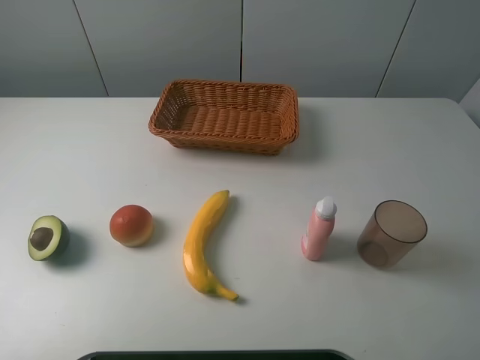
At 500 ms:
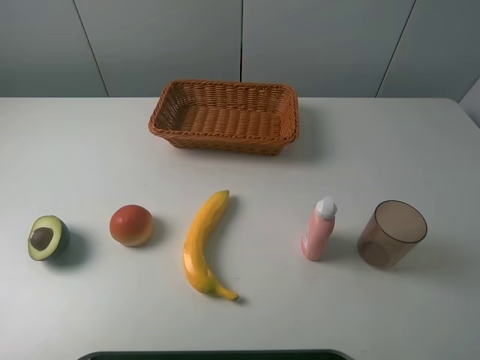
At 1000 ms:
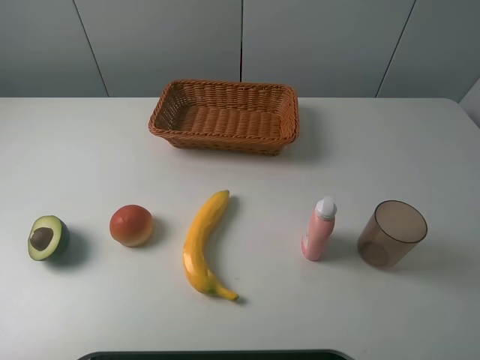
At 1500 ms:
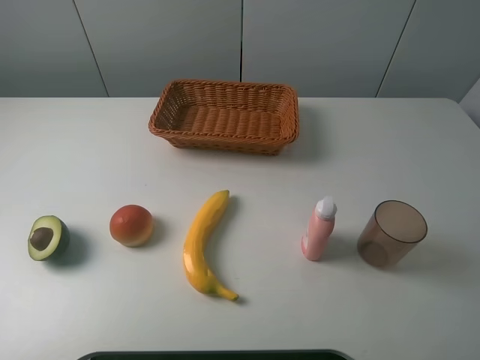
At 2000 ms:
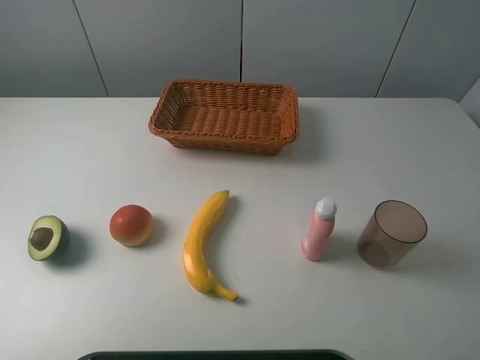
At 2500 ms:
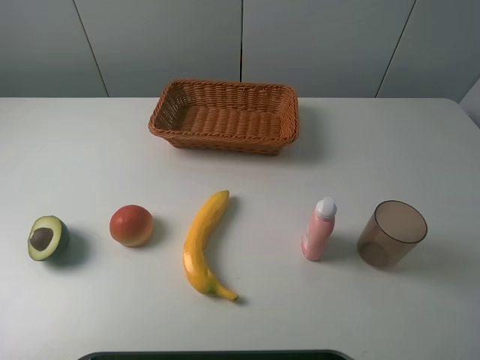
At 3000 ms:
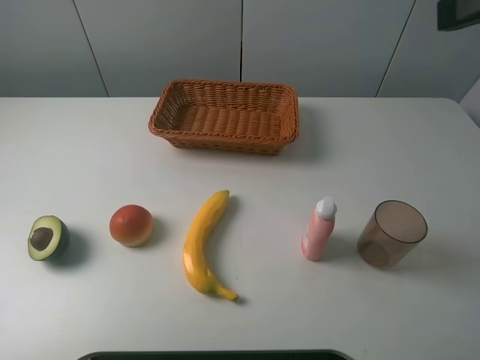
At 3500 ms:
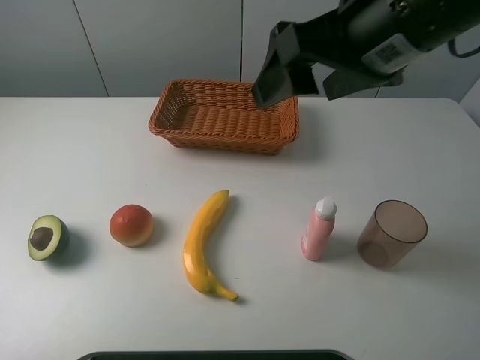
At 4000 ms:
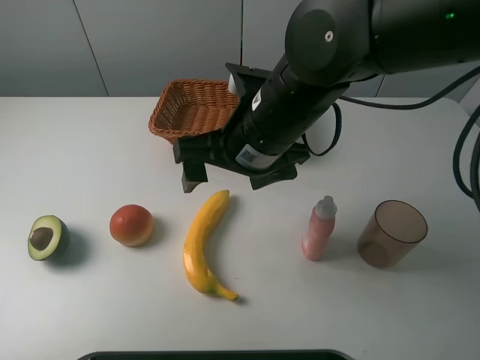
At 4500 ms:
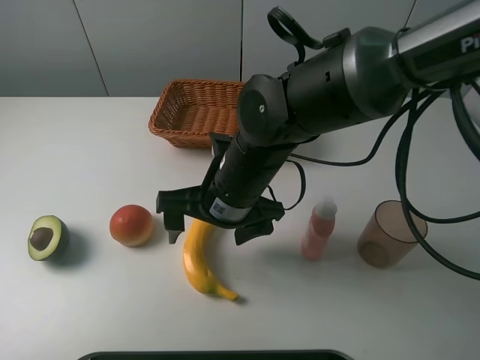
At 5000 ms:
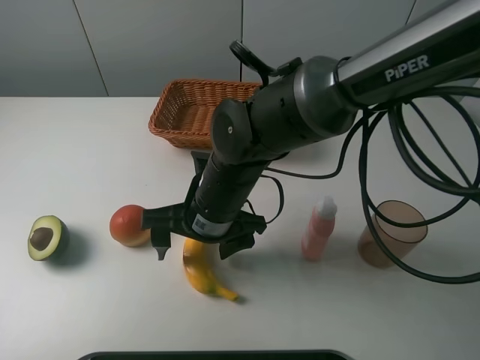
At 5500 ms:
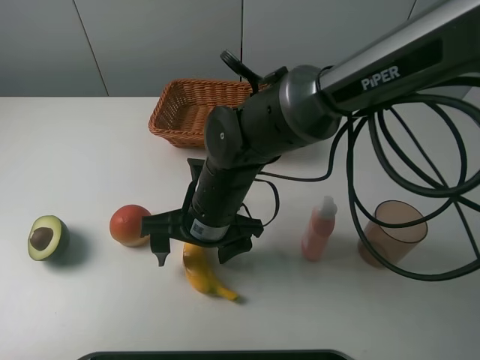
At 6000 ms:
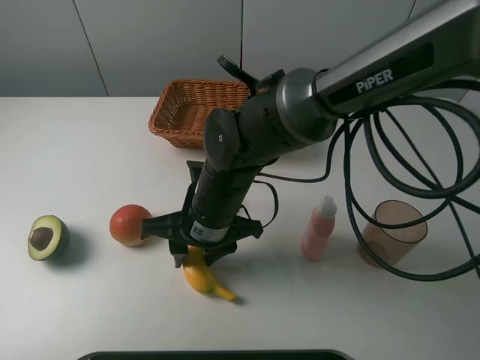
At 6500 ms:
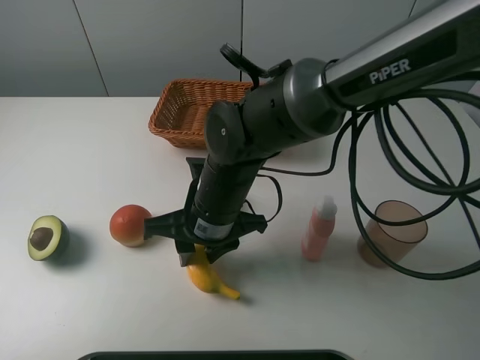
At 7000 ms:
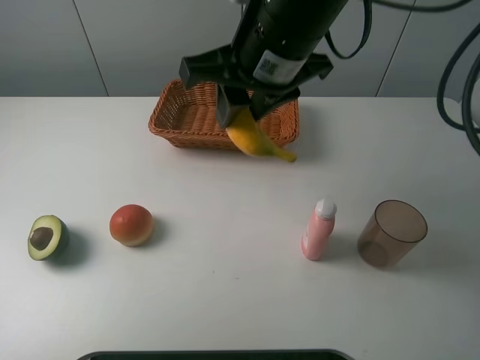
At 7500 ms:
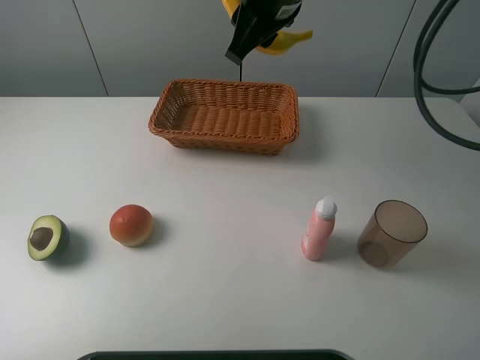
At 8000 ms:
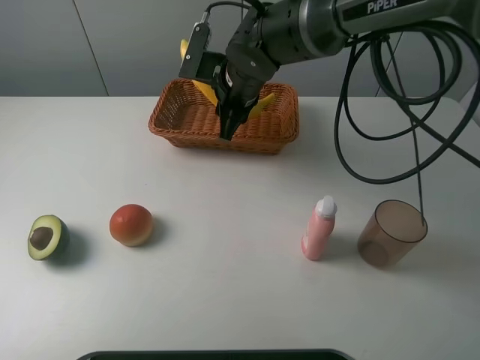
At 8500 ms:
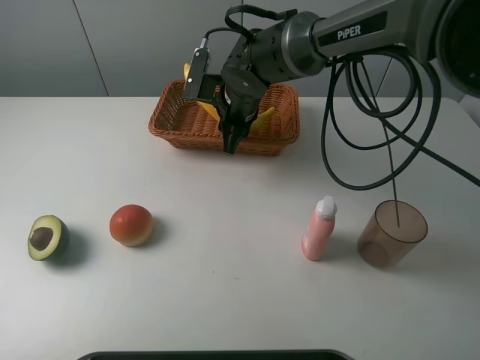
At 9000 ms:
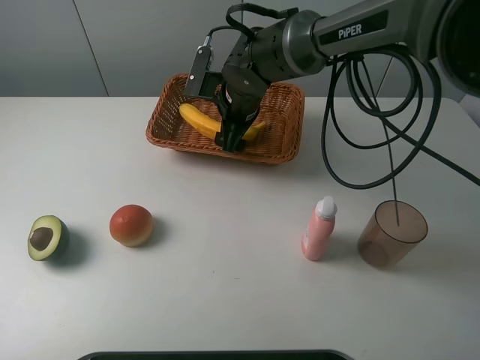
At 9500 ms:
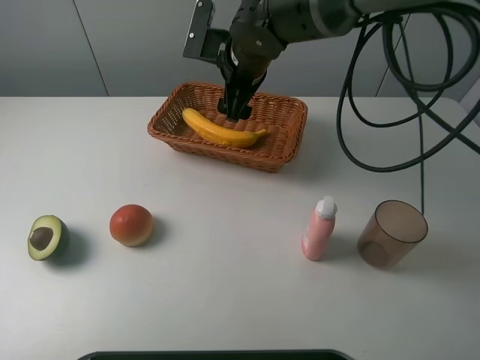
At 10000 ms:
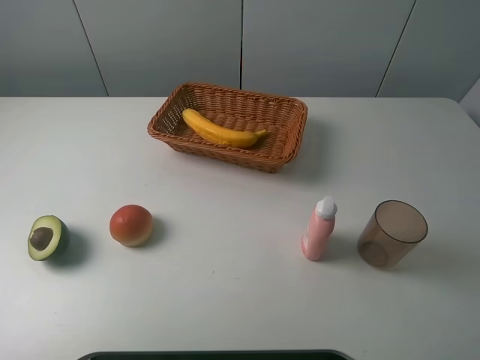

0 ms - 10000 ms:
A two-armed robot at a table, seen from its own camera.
Task of the whole recording: randomly pick up an item from the table and put it in the basket.
Step, 0 ms - 6000 ms: Grasp the banana with the right gripper.
Step, 6500 ms - 9500 ms: Place the banana into the basket with the right gripper.
0 ms - 2000 ms: Both grippers stay put.
2000 ms - 4000 ms: The right gripper moves to the left and forward, roughly 35 cm.
4000 ms - 6000 ms: The right gripper travels downward and to the left by some 10 cm, and closes its fingers.
6000 ms - 8000 ms: The right gripper shifts approximately 15 cm forward, and travels upward and back again, some 20 cm each way.
8000 ms - 10000 ms: The right gripper shifts some 30 cm upward and to the right, and opens.

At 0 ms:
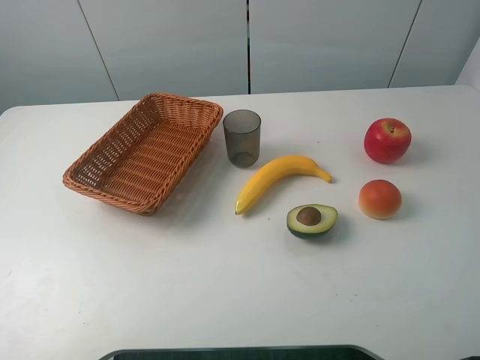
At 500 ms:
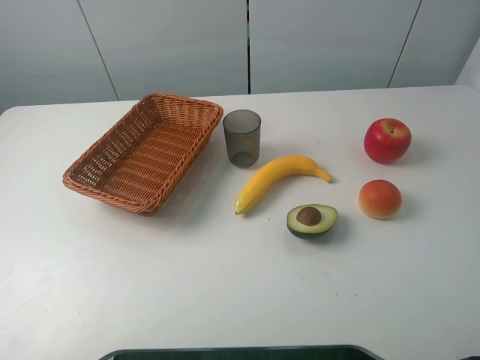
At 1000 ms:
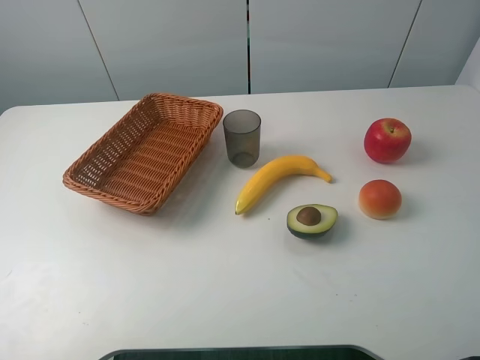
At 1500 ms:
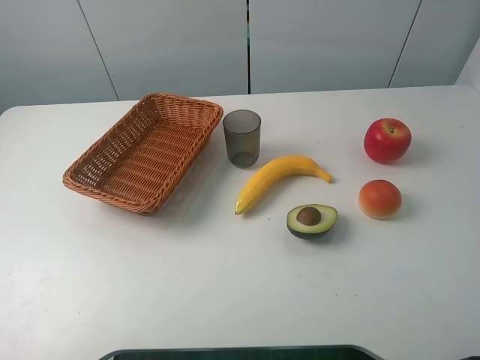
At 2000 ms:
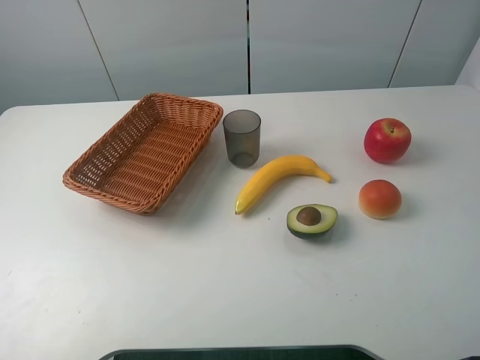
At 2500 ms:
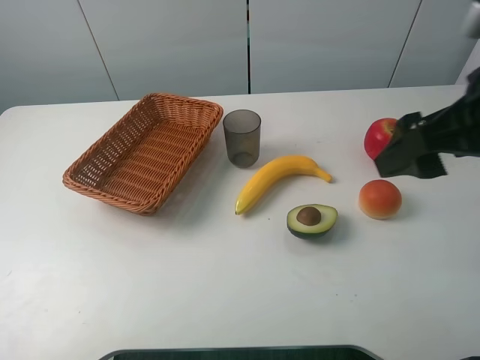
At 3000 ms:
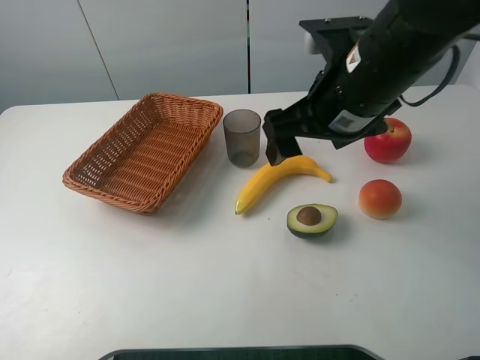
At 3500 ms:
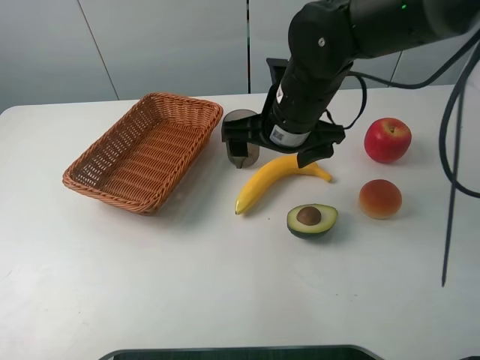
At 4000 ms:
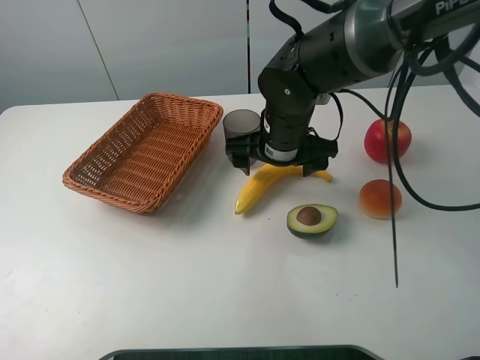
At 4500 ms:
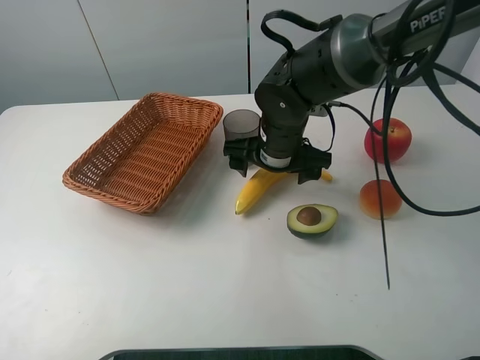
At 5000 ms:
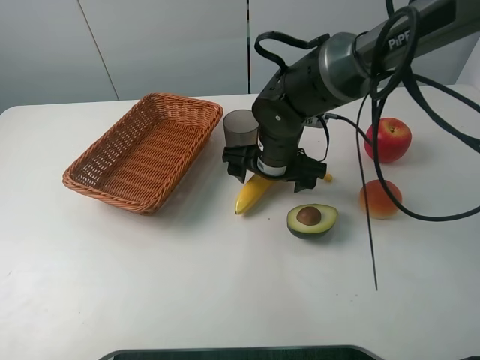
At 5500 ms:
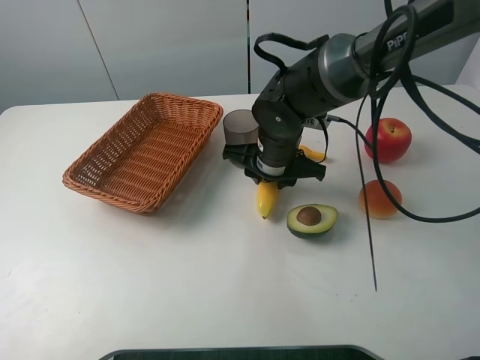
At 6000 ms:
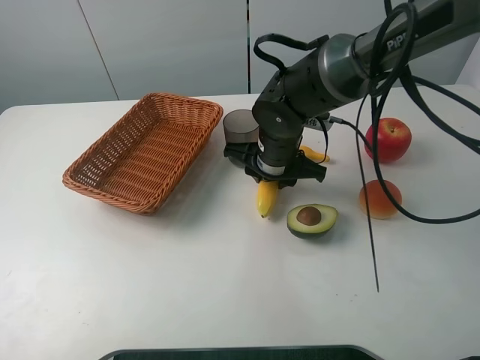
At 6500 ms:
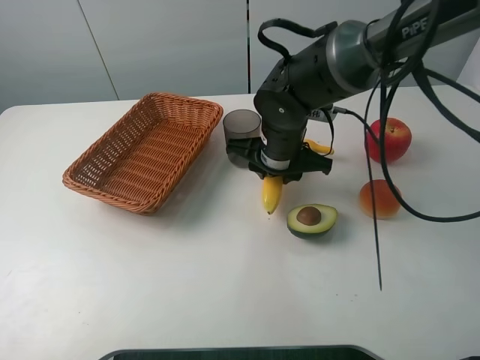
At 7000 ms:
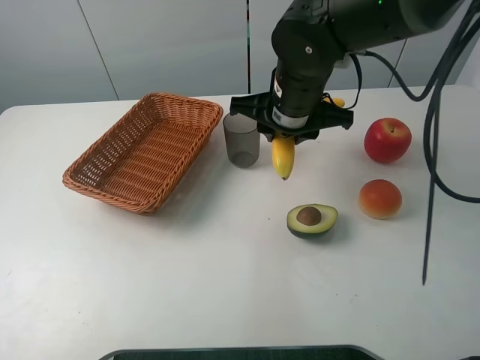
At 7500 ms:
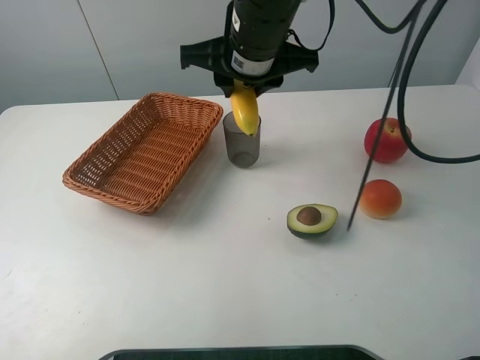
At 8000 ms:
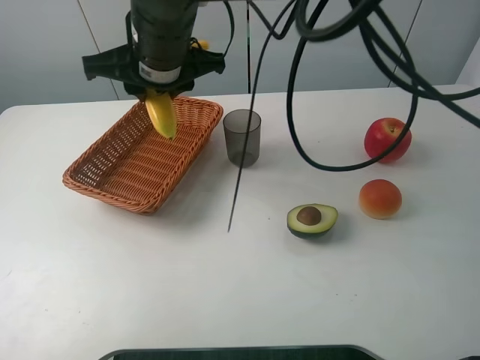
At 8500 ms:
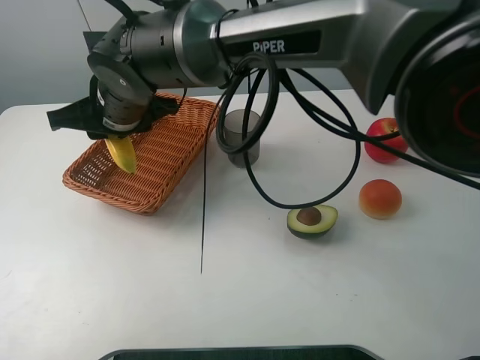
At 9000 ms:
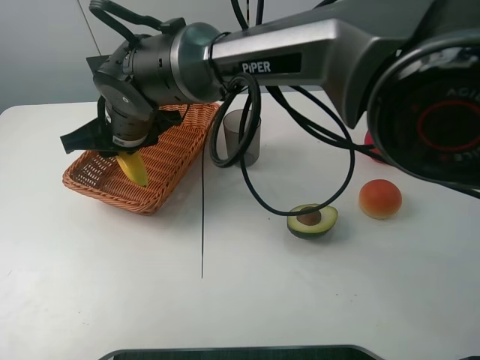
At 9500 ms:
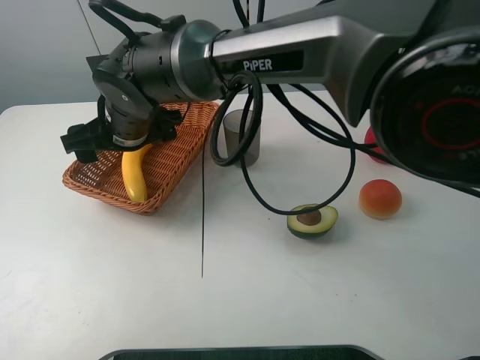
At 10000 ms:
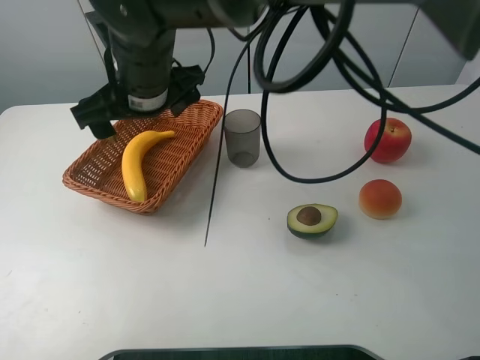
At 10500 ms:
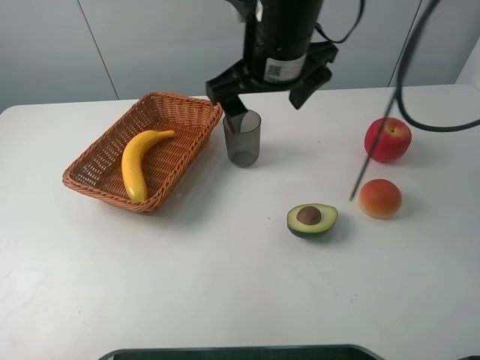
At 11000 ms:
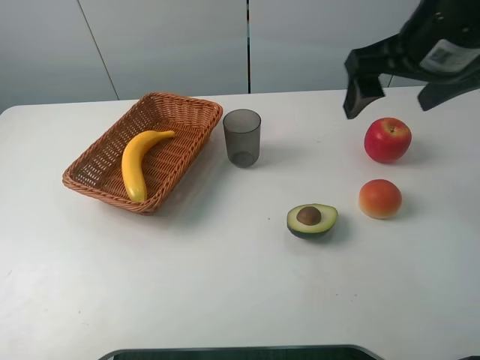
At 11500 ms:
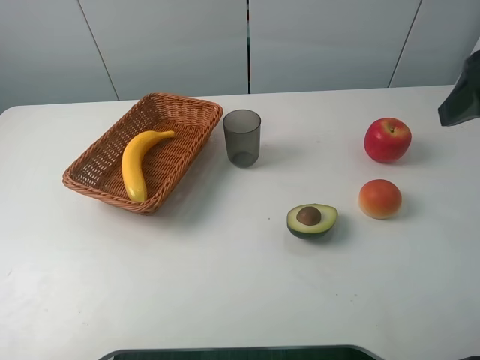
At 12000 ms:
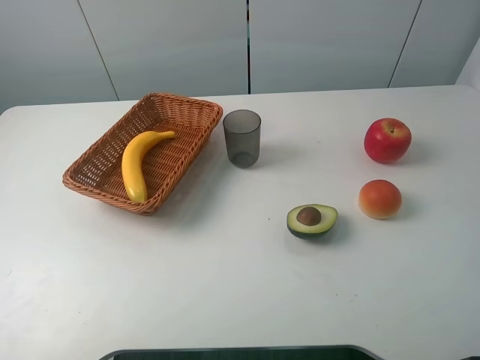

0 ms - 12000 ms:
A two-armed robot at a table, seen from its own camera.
Task of the whole recording: randomly pick up an item from the table and put it in the basket.
Step, 0 ms - 5500 ms: Grasp the banana with the right gripper.
Step, 6000 ms - 9500 ms: Place the banana into the basket with the right gripper.
2000 ms - 4000 ms: The right gripper travels forward, to the left and downward by approximately 40 cm.
4000 ms - 6000 ms: The right gripper closes.
6000 ms - 8000 ms: The right gripper is displaced upward and to the left by approximately 20 cm.
8000 ms - 10000 ms: The right gripper reaches roughly 10 cm downward, then returns, and opens up.
10000 ms - 12000 ms: The right gripper heads to the right and backward, covering some 40 cm.

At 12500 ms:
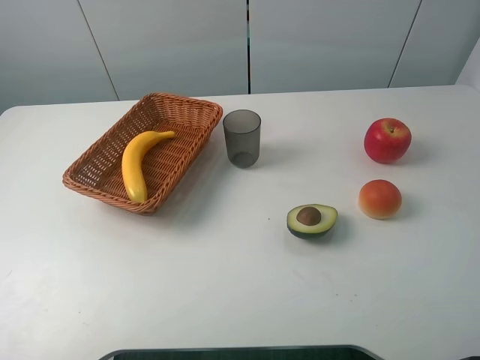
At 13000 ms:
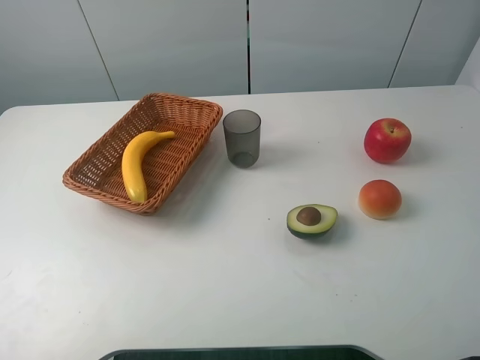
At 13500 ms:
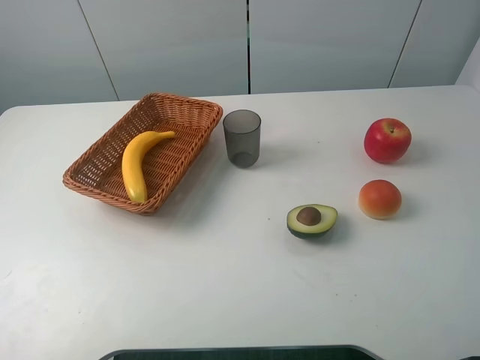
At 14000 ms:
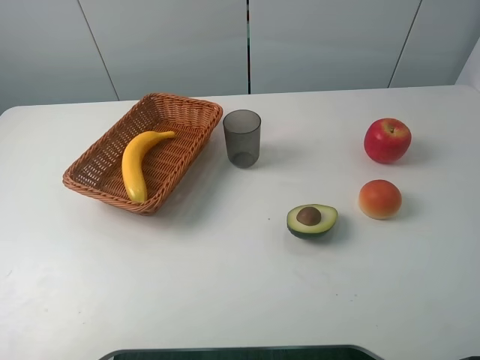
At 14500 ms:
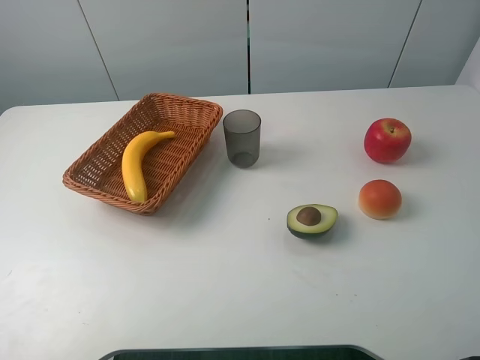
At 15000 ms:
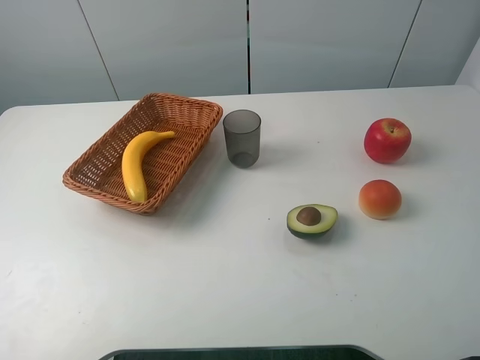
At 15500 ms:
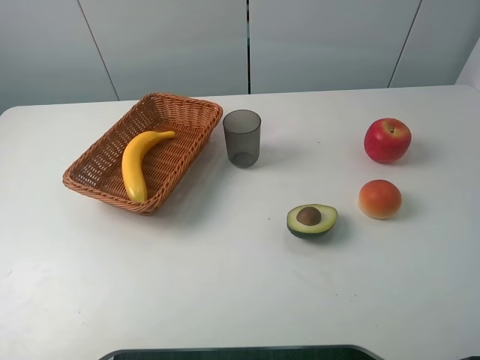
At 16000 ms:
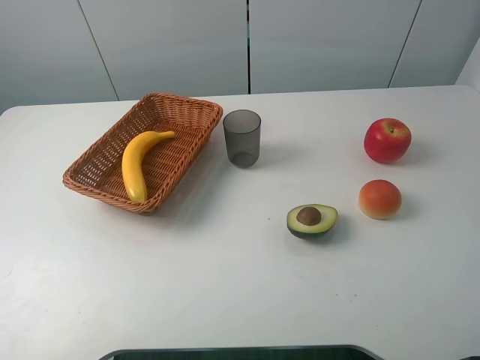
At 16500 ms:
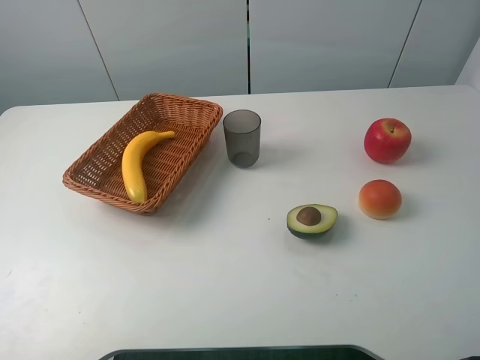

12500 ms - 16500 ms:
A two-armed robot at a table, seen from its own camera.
Task of the whole recording: randomly pick up an item from the table and put it in the basket.
14500 ms - 16500 ms: Neither gripper changes place.
